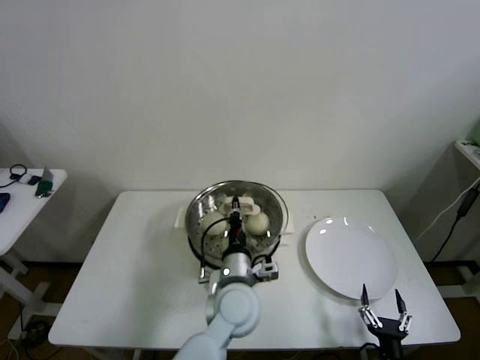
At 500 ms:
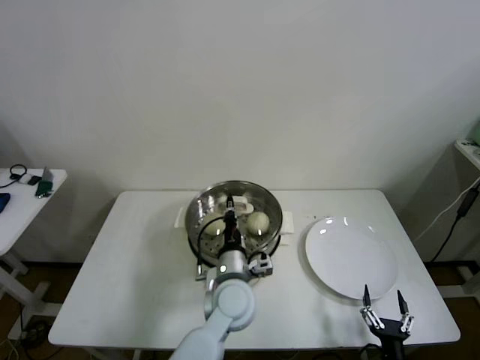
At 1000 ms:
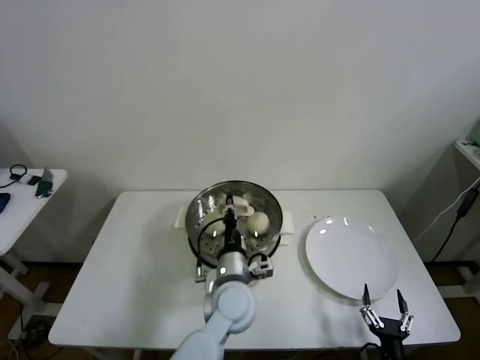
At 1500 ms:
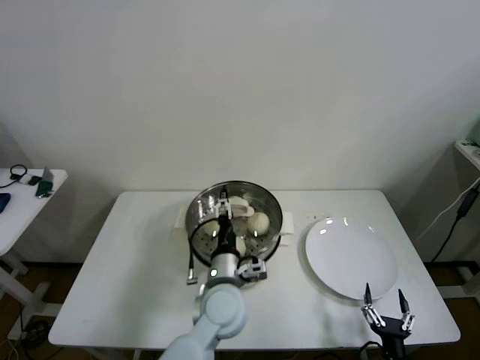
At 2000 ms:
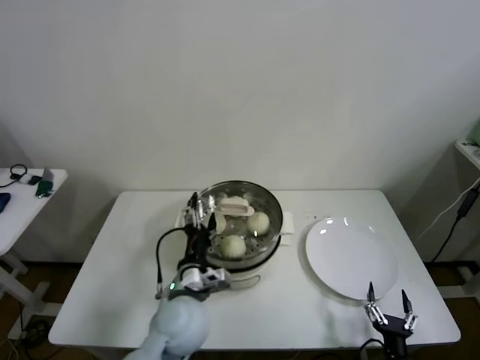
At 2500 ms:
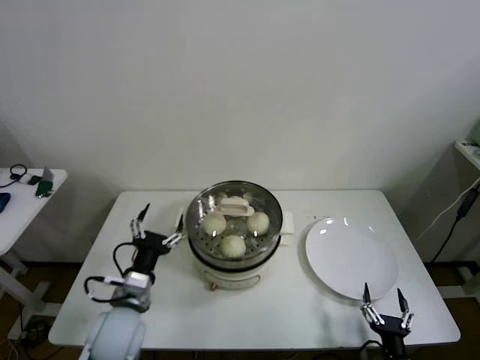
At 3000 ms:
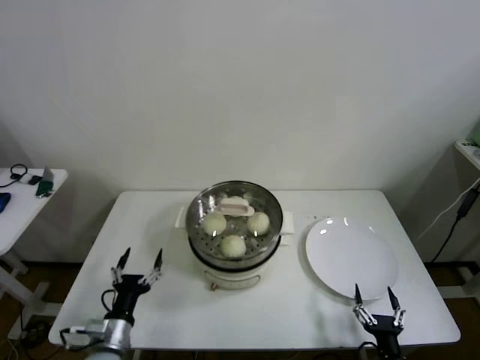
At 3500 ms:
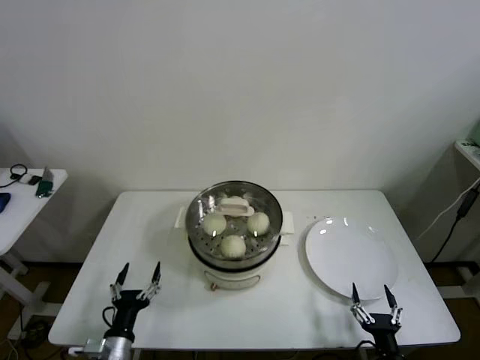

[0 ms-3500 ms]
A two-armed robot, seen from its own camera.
0 ms to 2000 ms: The left gripper moves to the left, about 10 cm, and opens its fingers.
2000 ms to 3500 ms: The left gripper heads to the left, downward and backward, covering some 25 cm.

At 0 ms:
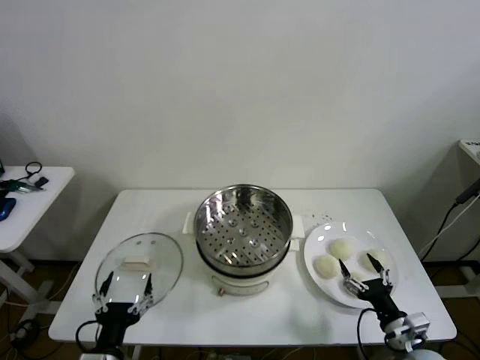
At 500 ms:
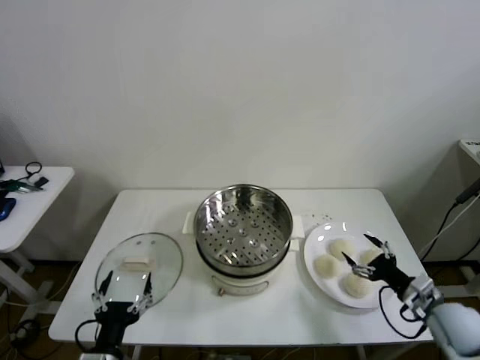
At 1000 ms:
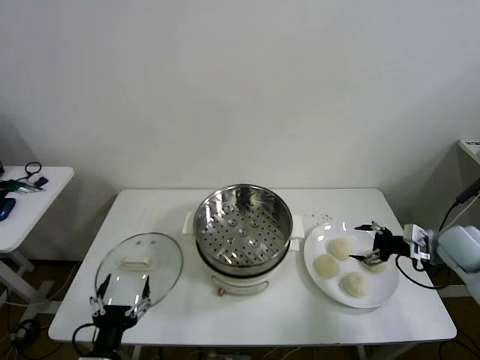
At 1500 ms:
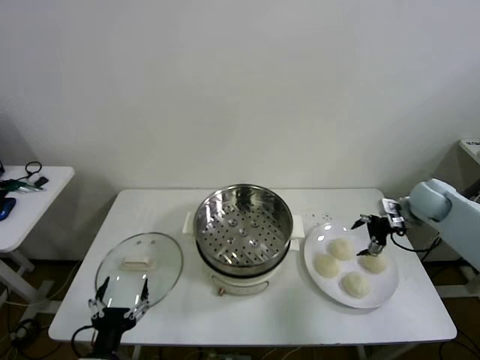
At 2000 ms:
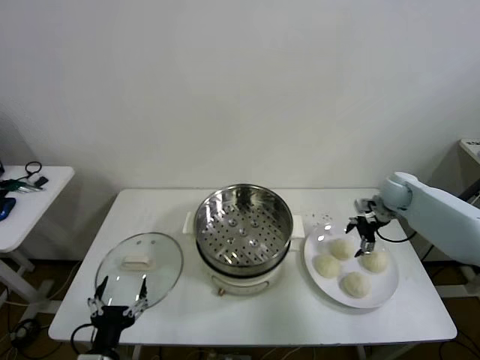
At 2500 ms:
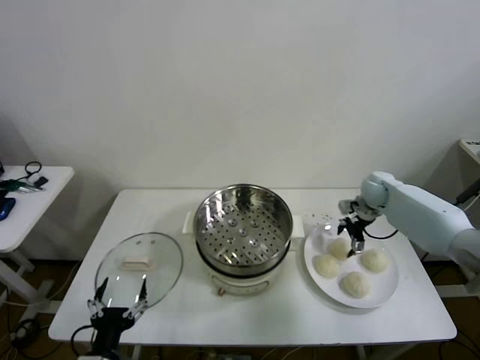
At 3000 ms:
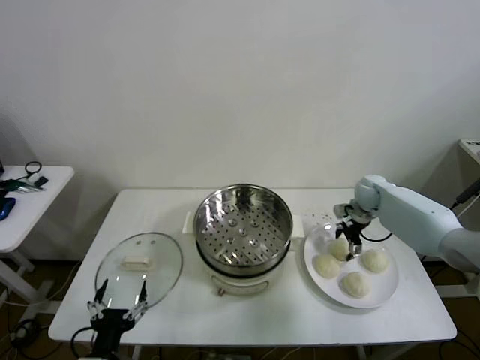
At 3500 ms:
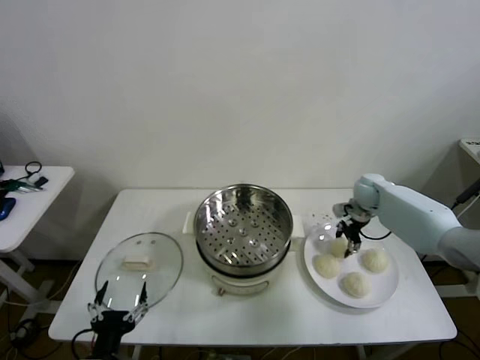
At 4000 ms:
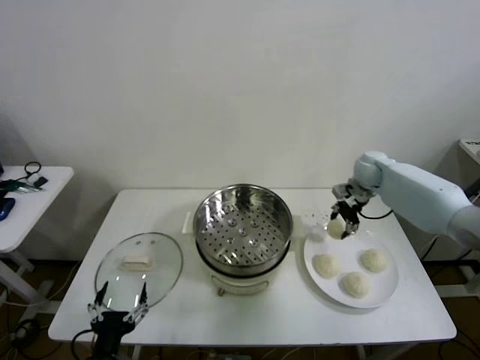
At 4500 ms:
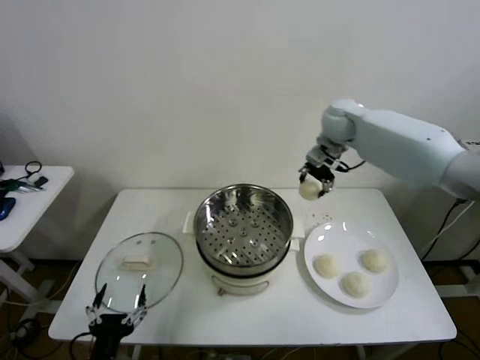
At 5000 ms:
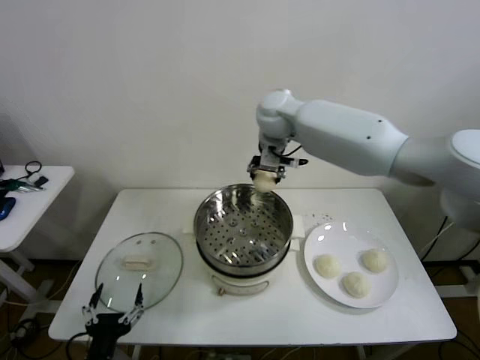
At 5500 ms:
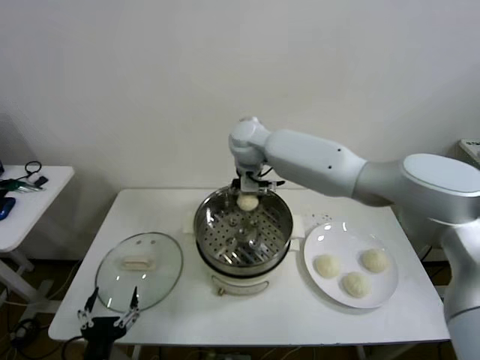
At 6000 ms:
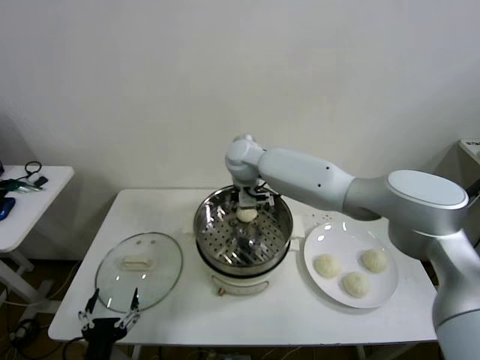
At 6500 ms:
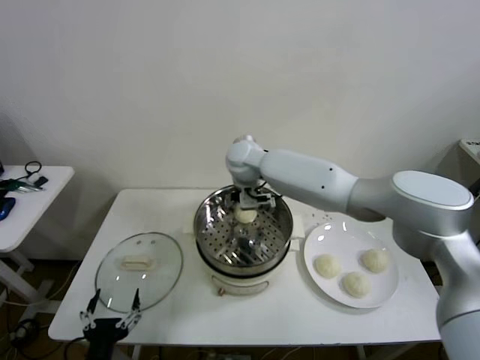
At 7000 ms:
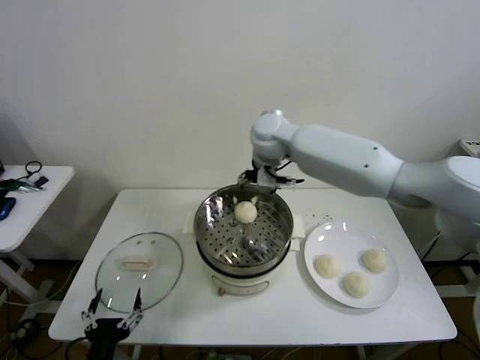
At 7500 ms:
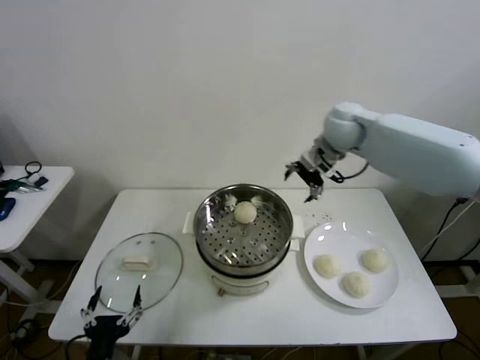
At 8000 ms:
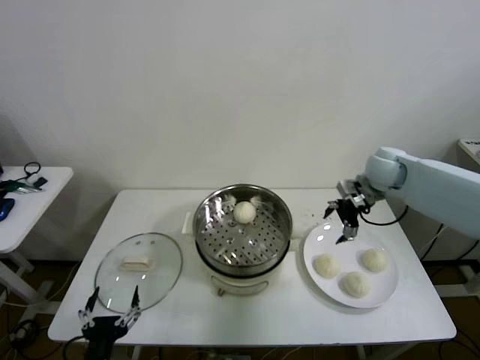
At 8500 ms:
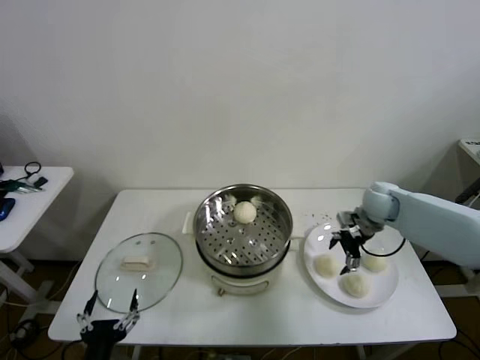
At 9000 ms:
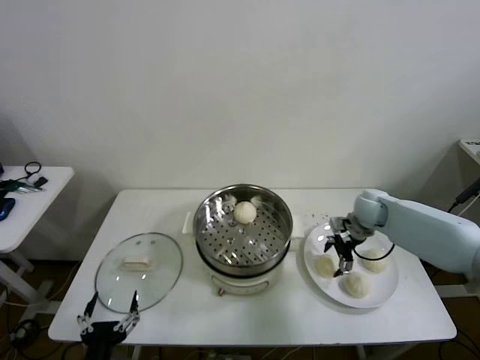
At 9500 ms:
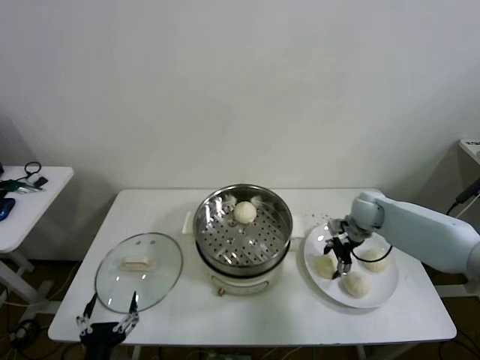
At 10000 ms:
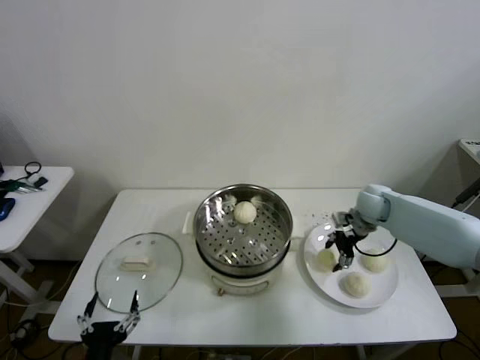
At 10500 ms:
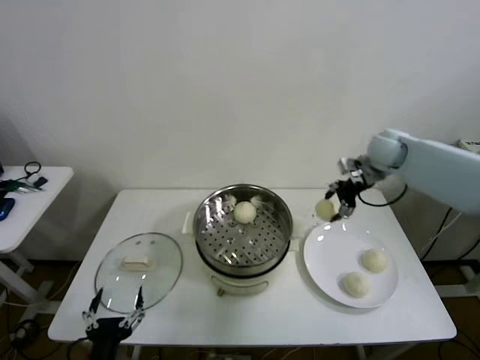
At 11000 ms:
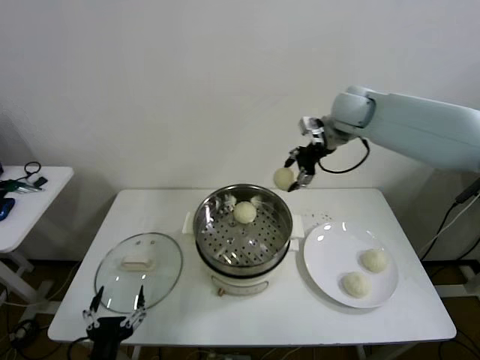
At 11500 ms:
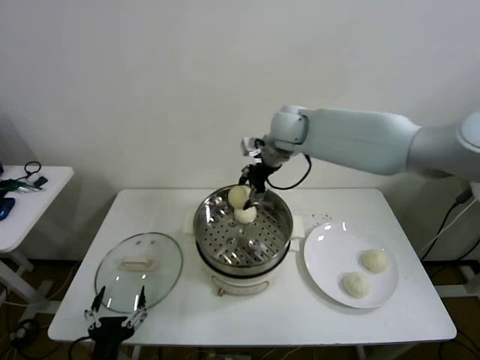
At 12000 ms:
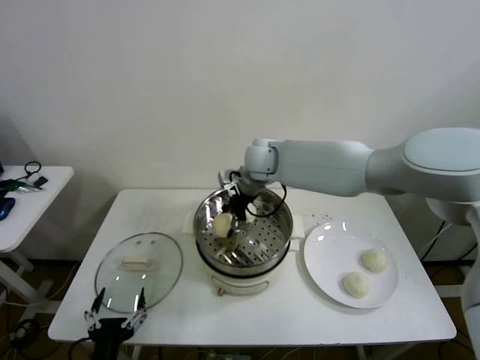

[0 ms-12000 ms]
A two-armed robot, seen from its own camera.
Step, 0 ms to 3000 ms: Grasp the baozi in the plate with right gripper.
Step, 3500 ms to 6000 ms: Place the baozi on the steamer with right gripper.
Step, 6500 ms to 9500 ms: Grasp the baozi in the plate with right gripper.
2000 ms to 4000 ms: The right gripper is displaced to the left and upward by about 10 cm, and closes.
4000 ms to 6000 ms: The right gripper is displaced to the left by some 35 cm, and opens up.
6000 ms to 8000 ms: The right gripper is displaced to the right by roughly 35 cm, and opens.
8000 ms to 10000 ms: The right gripper is displaced downward by approximately 10 cm, and closes its fingers.
10000 ms to 12000 ms: The right gripper moves to the left, some 30 cm.

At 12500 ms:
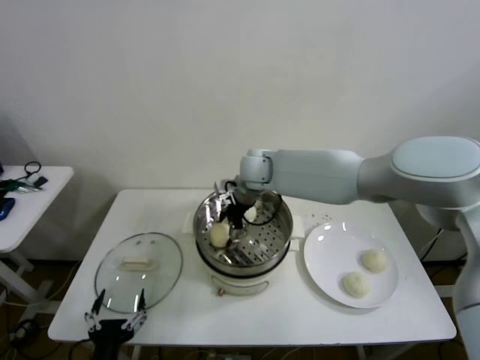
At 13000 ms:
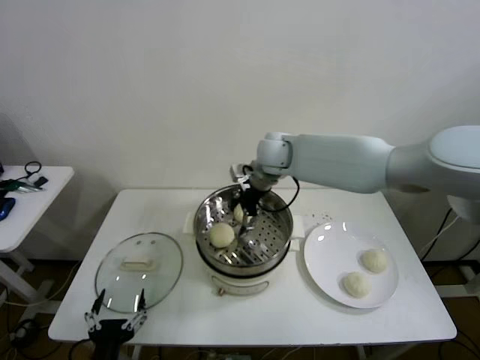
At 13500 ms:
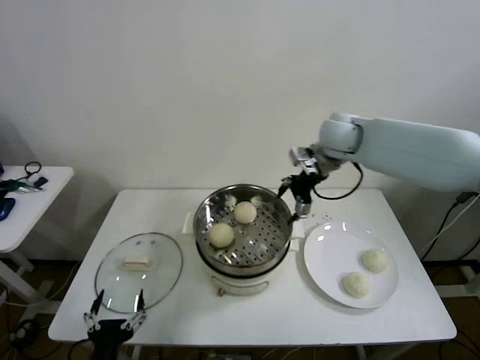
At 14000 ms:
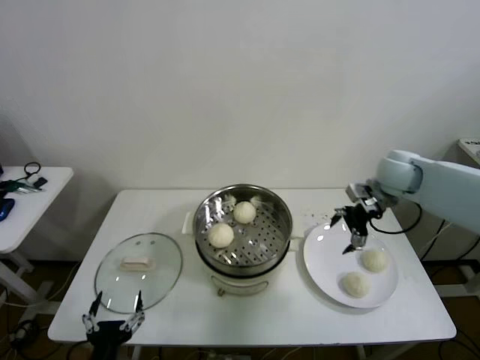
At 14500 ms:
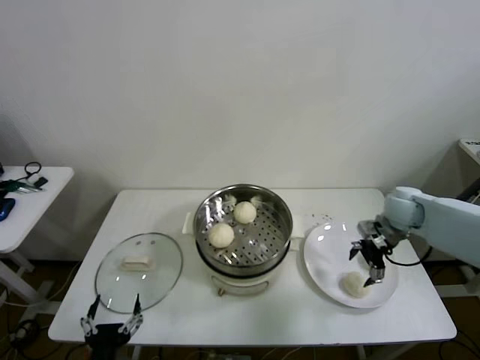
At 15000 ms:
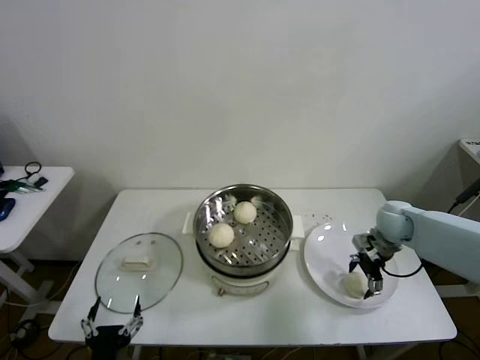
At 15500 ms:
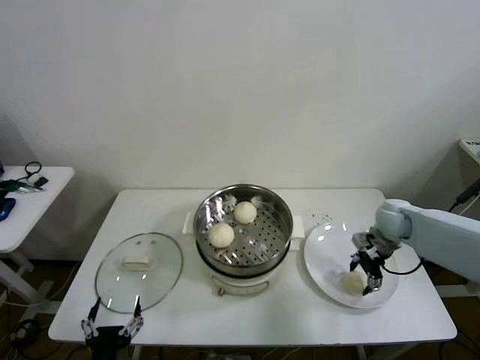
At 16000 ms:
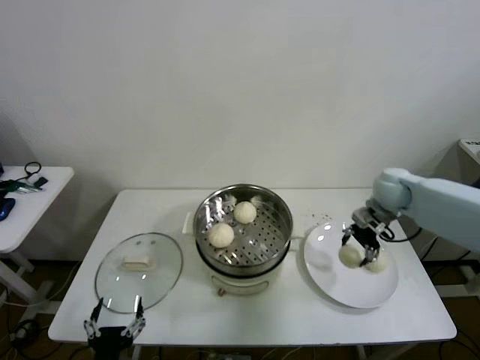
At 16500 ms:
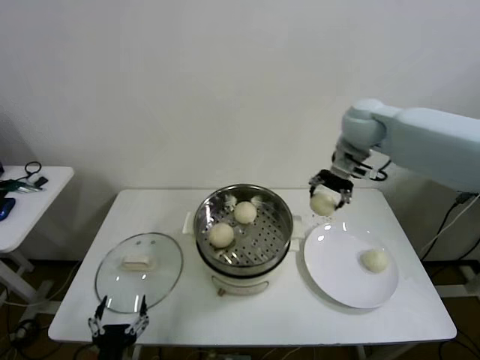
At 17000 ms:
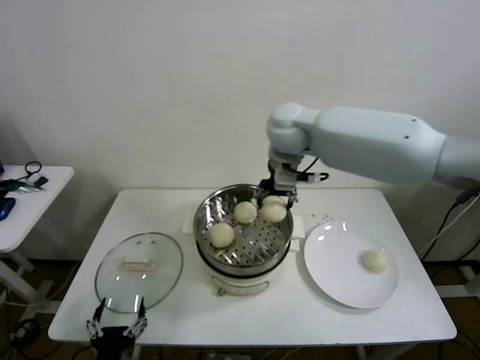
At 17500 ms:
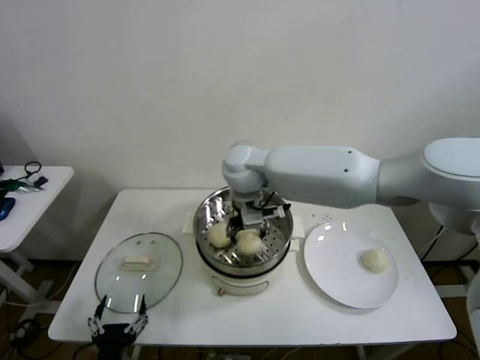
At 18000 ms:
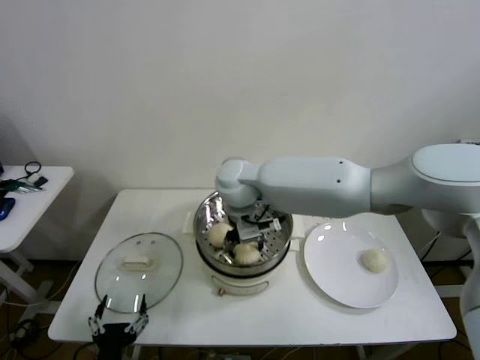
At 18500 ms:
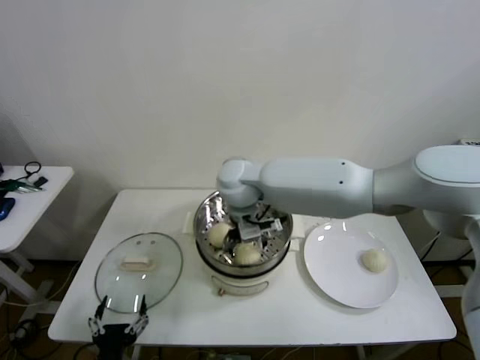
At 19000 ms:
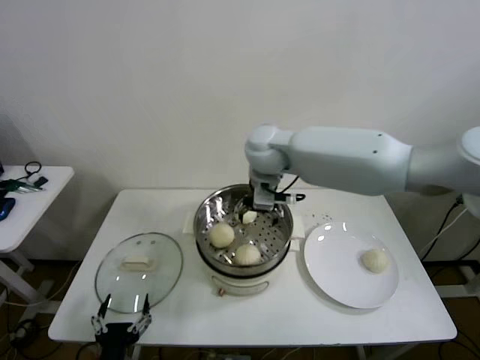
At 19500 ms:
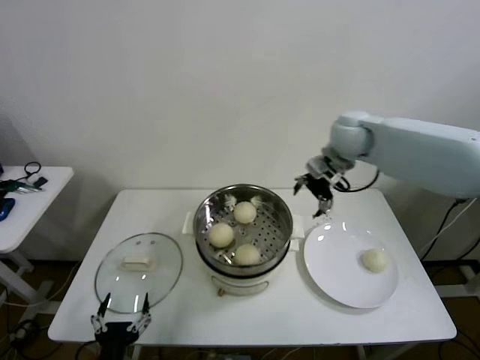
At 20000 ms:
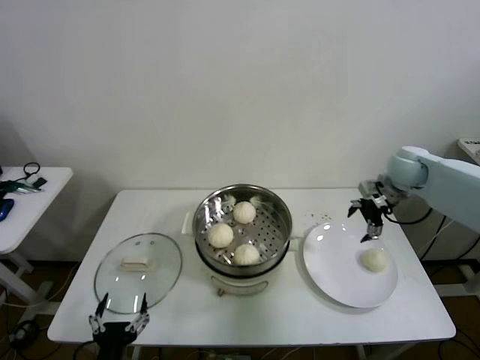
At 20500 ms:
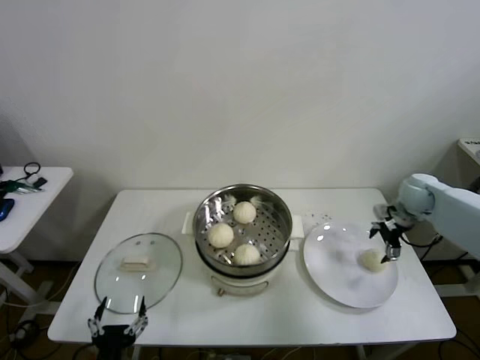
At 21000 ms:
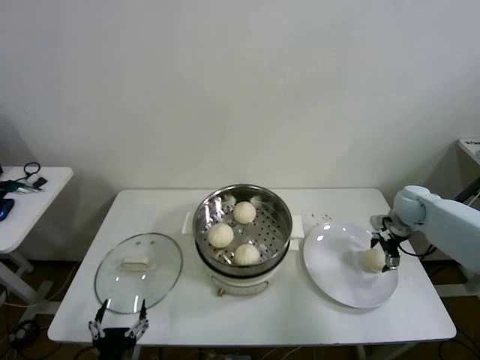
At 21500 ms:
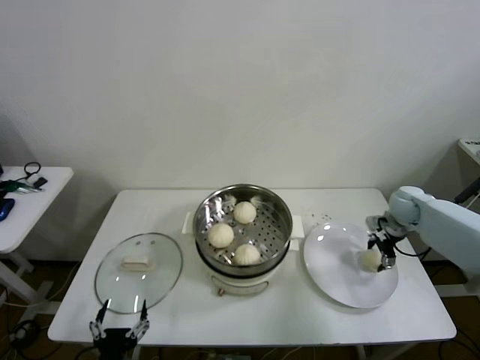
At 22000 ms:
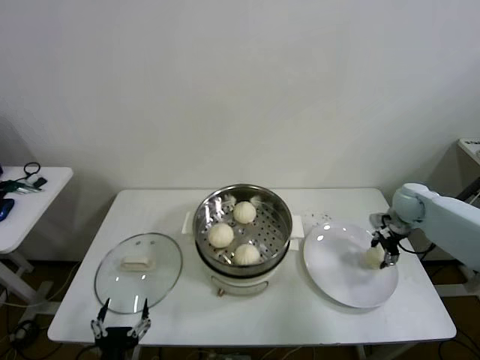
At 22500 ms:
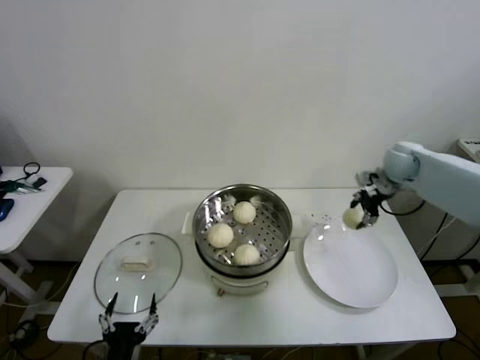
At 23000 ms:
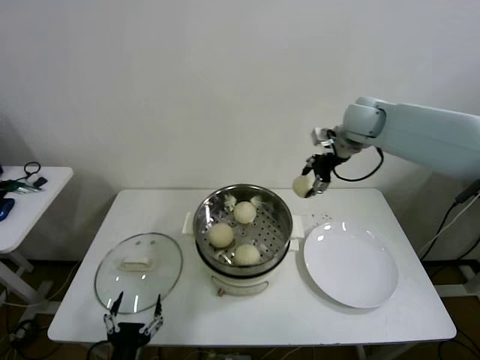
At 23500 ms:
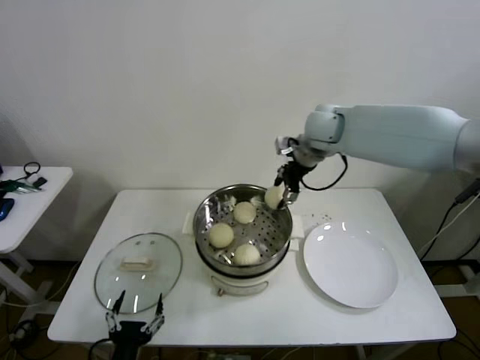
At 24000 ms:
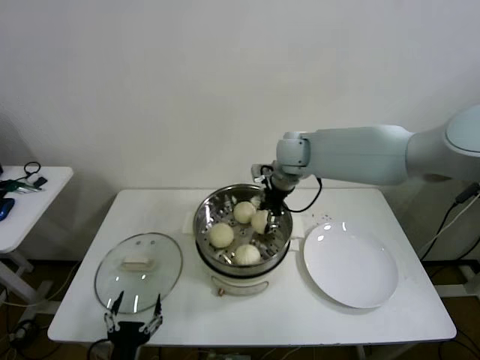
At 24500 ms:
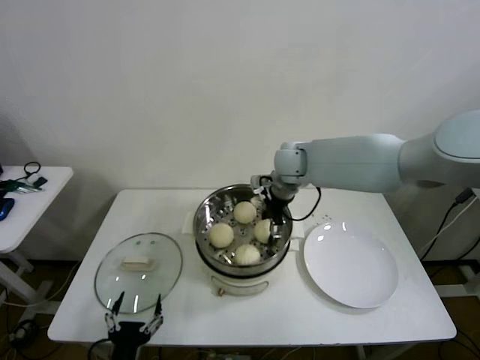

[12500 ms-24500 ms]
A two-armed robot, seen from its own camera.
Step, 13000 ms to 15000 ms: Grasp the baozi in the plate with right gripper.
Step, 15500 ms to 18000 ms: Place the baozi on the steamer with right gripper.
Step, 18500 ms to 21500 ms: Grasp the baozi in the plate with right gripper.
12500 ms to 14500 ms: The right gripper moves to the right, some 35 cm.
14500 ms to 16500 ms: The right gripper heads upward and to the left, covering roughly 25 cm, and closes.
16500 ms to 18500 ms: The right gripper heads to the left, covering roughly 25 cm, and opens up.
18500 ms to 20500 ms: The right gripper goes about 50 cm to the right.
20500 ms to 22500 ms: The right gripper goes approximately 10 cm upward and to the left, and closes.
22500 ms to 24500 ms: The right gripper travels to the left by about 25 cm, and opens its fingers.
